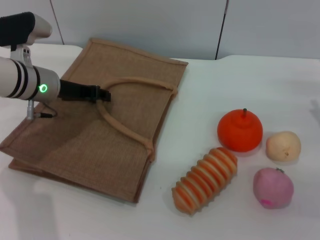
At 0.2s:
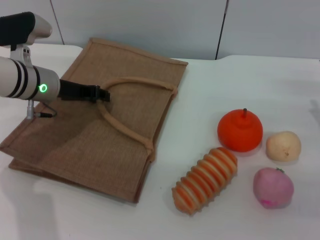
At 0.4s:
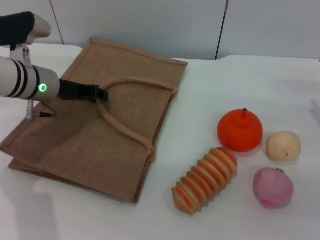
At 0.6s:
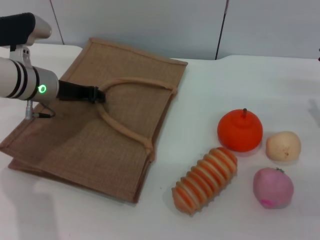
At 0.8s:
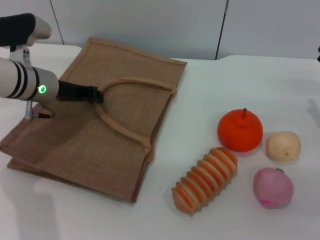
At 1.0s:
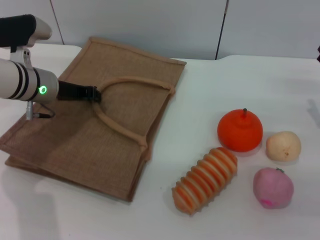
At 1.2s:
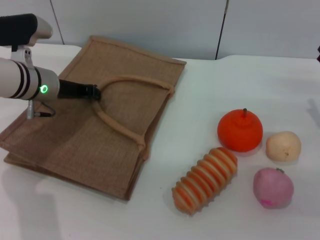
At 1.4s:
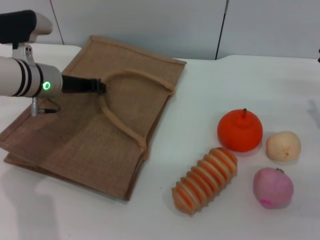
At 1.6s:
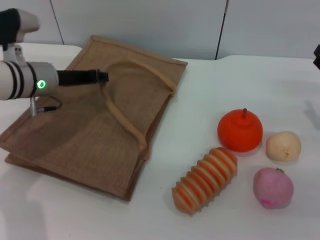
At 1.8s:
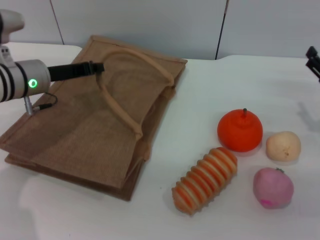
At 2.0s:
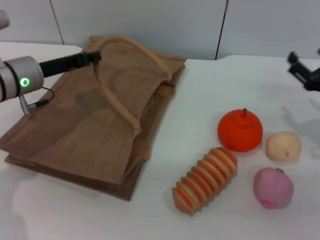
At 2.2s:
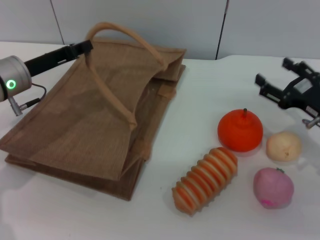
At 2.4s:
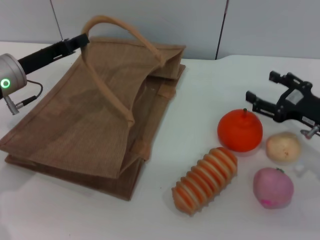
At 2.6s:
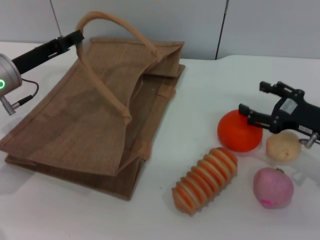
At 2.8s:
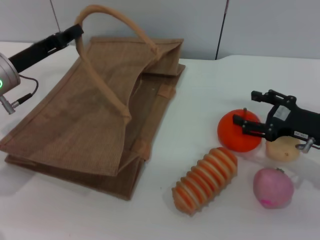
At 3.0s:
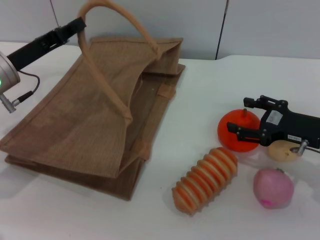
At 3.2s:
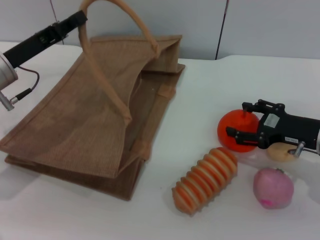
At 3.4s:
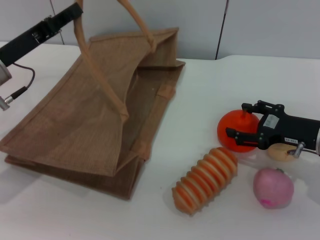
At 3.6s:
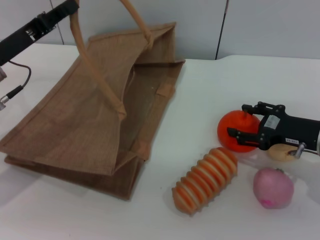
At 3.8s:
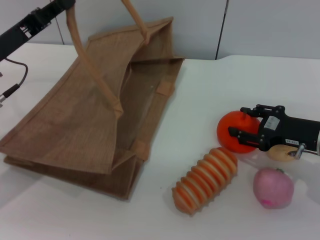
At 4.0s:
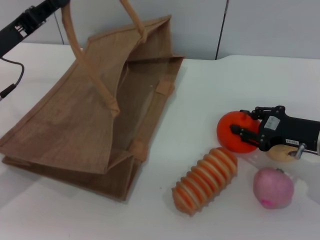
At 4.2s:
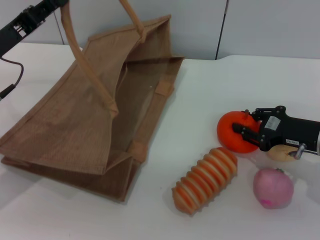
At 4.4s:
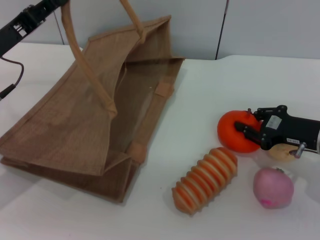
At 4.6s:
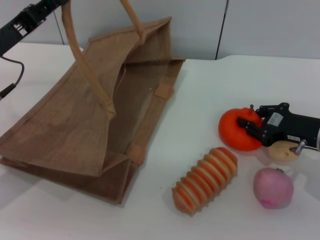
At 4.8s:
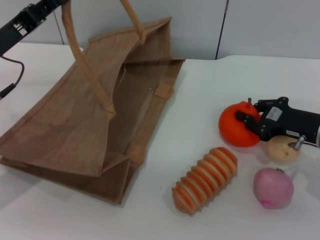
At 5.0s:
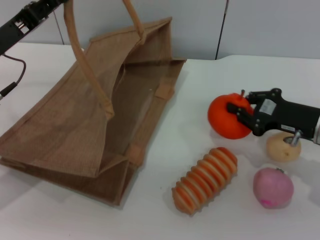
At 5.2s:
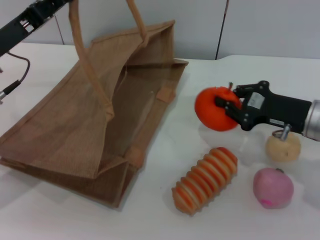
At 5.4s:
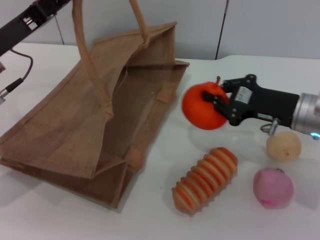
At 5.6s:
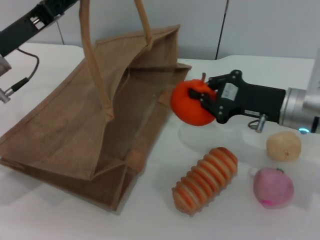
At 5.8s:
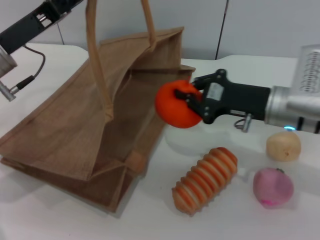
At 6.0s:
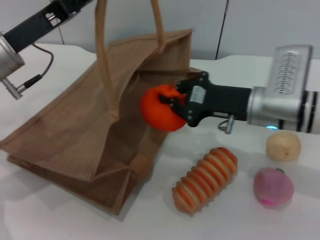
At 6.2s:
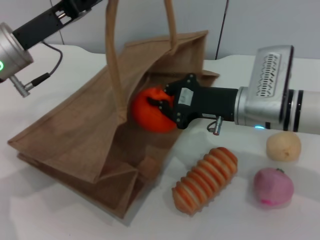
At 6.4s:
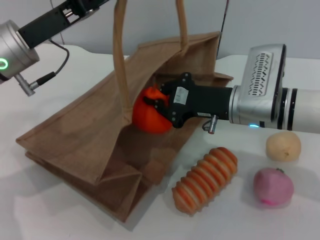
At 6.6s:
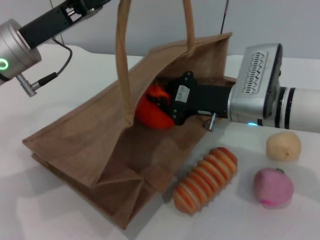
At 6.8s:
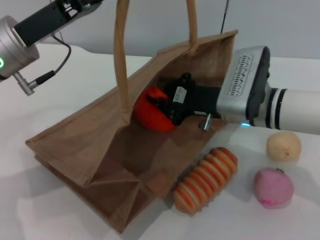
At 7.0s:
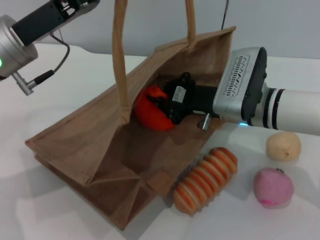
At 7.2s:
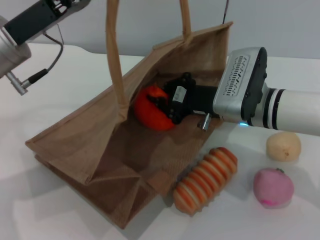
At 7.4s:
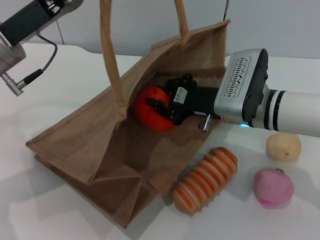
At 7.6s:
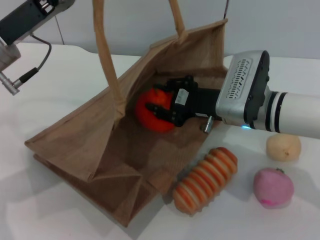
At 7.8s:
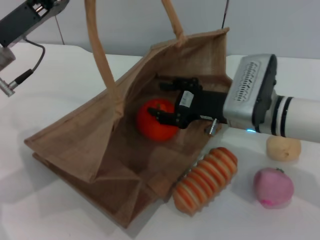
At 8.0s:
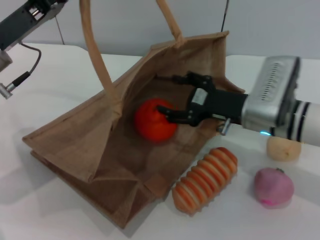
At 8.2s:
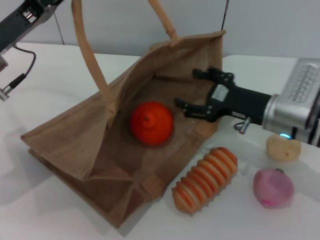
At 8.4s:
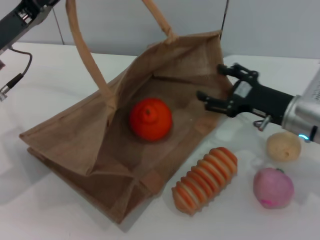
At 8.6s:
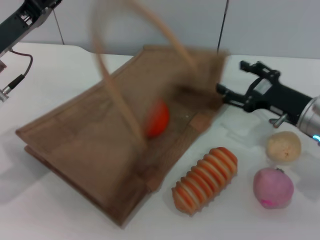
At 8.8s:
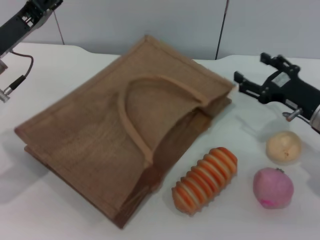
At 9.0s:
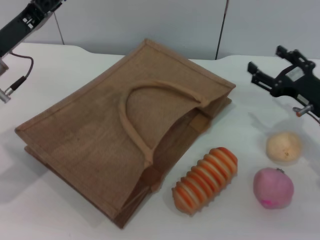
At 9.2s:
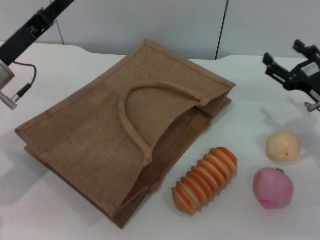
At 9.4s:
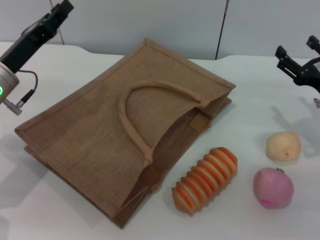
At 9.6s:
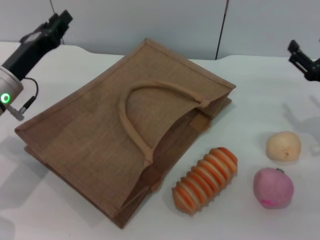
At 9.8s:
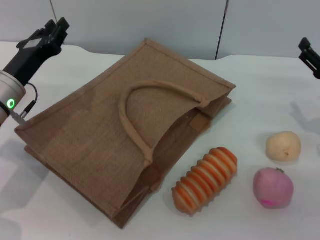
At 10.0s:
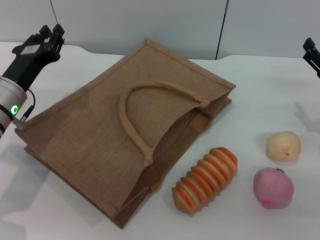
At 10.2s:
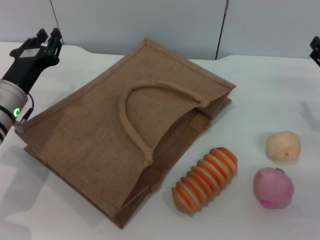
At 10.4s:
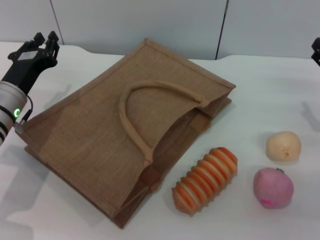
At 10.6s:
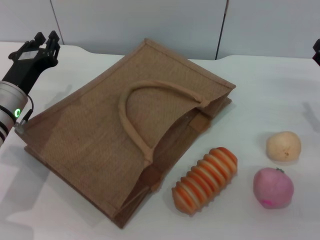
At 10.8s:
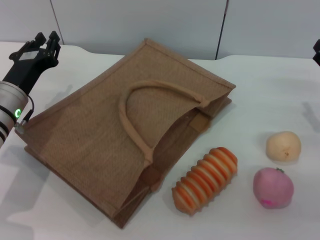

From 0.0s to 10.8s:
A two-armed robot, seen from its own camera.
Task of the whole recording: pick up the orange from the table and place it in the brown handbag.
Step, from 0.0s to 2.0s: Lift the woven bag with the left gripper to open it.
Step, from 2.2s to 4.4s: Pick up the orange with the right gripper.
Step, from 4.6s to 8.0s: Place the orange into the woven bag with the right gripper.
Step, from 8.2s to 9.2s: Lower the woven bag with the left gripper to close it.
From 0.0s to 1.6s: The left gripper closes.
From 1.6s to 3.0s: The left gripper ends up some 5 cm from where it was.
From 3.0s to 4.6s: The right gripper closes up.
From 4.6s to 6.2s: The right gripper moves to the left, about 15 cm. Meanwhile the left gripper changes place by approximately 5 cm.
From 6.2s to 7.8s: The right gripper opens its fingers.
From 7.8s to 9.2s: The right gripper travels to the right by approximately 15 cm, and opens its fingers. The left gripper changes place by roughly 5 cm, and opens its fingers.
From 9.2s to 10.8s: The left gripper travels downward by about 5 cm.
